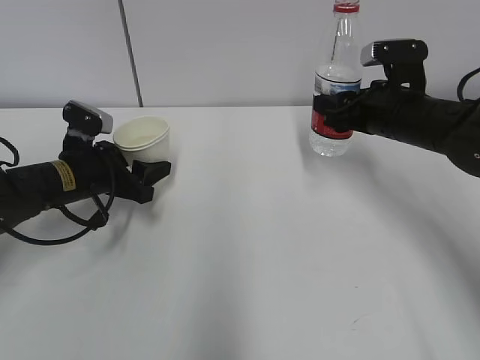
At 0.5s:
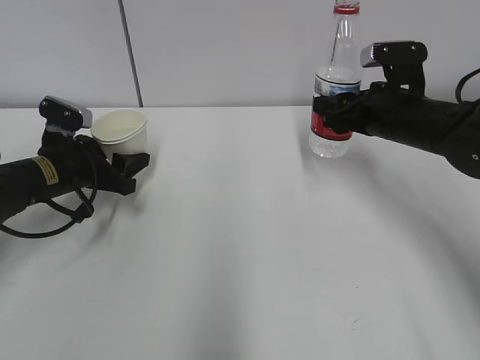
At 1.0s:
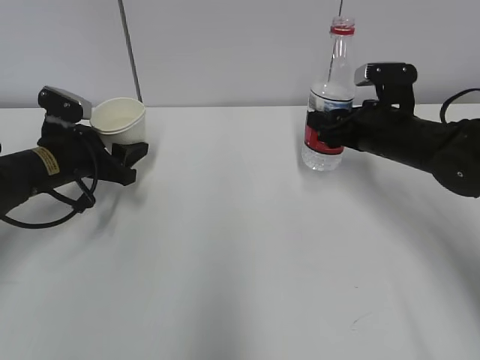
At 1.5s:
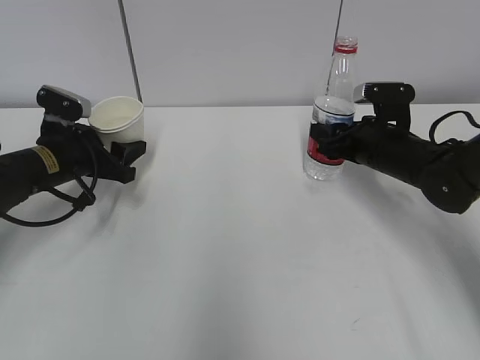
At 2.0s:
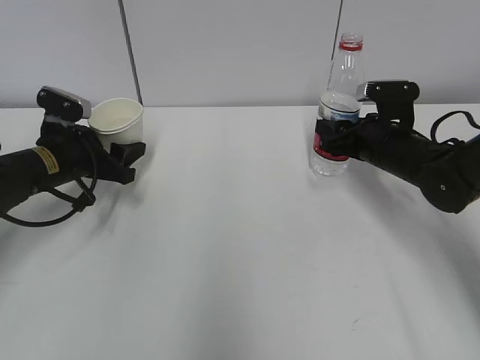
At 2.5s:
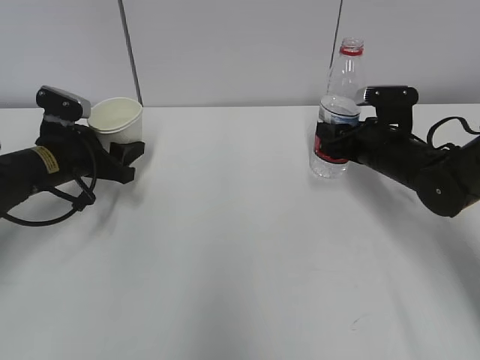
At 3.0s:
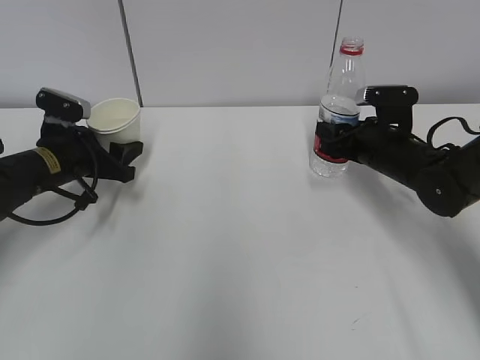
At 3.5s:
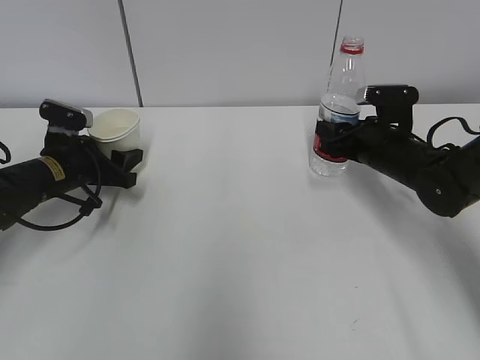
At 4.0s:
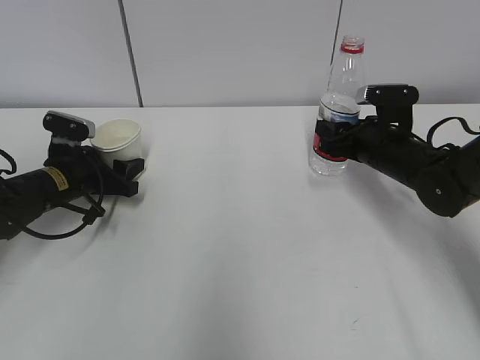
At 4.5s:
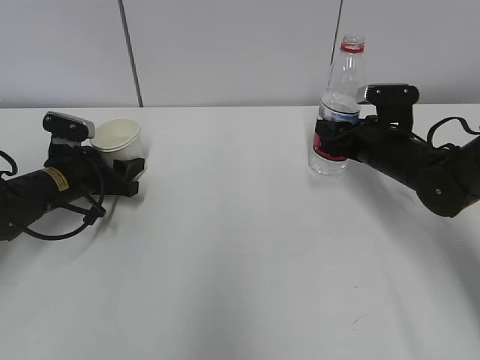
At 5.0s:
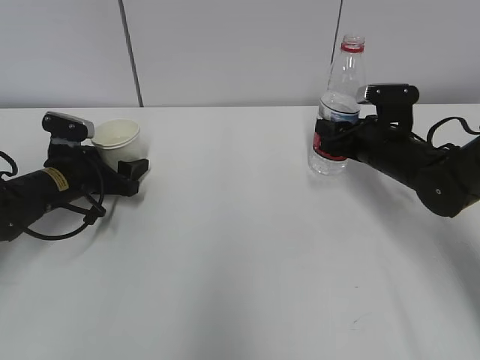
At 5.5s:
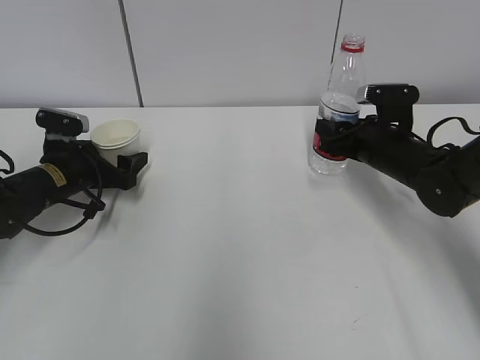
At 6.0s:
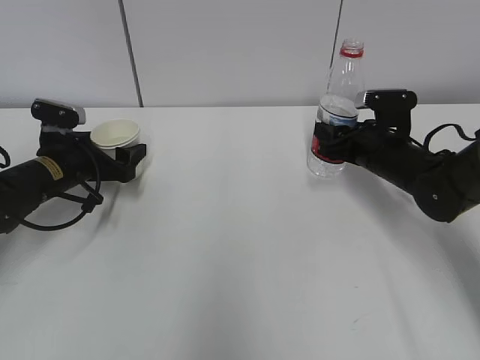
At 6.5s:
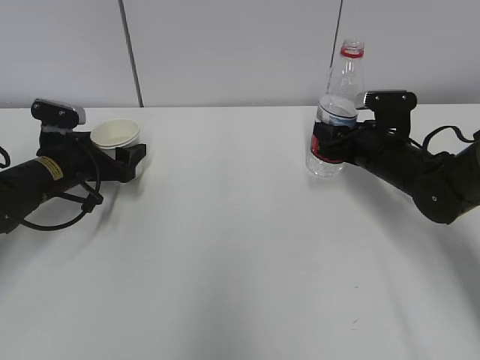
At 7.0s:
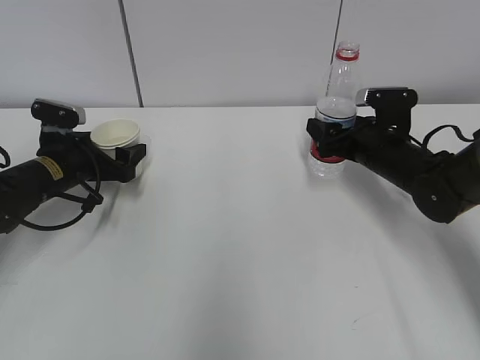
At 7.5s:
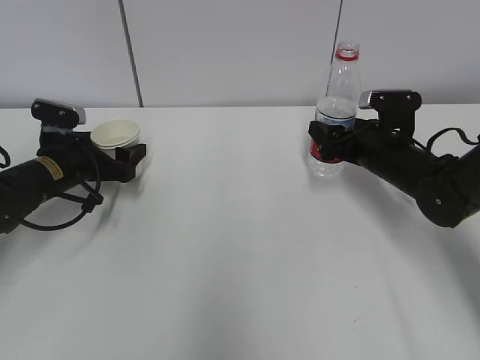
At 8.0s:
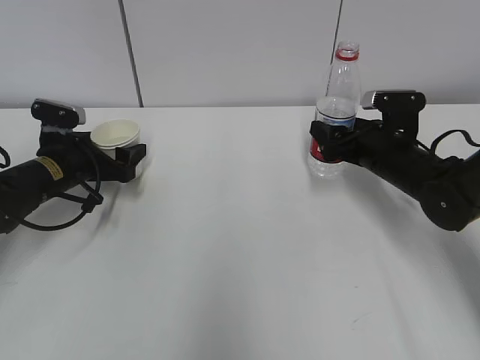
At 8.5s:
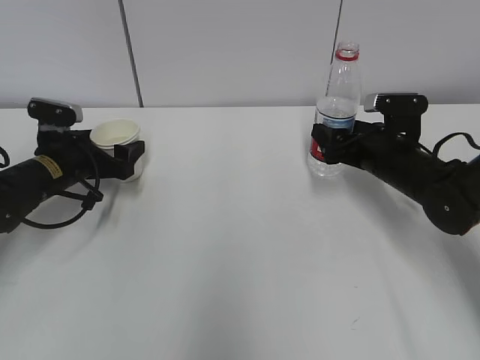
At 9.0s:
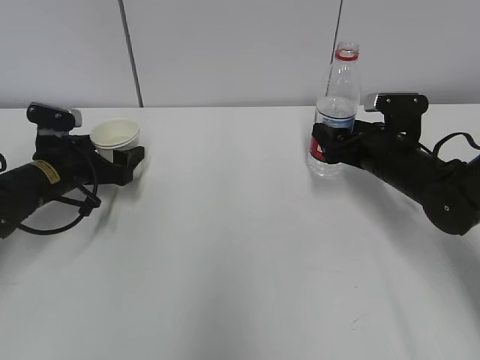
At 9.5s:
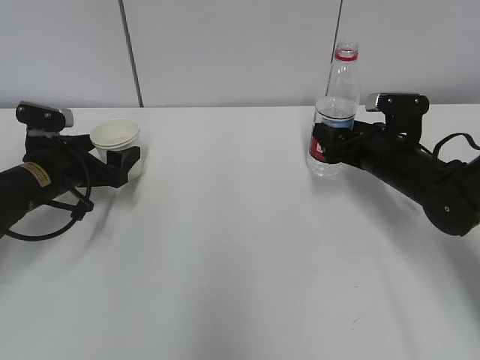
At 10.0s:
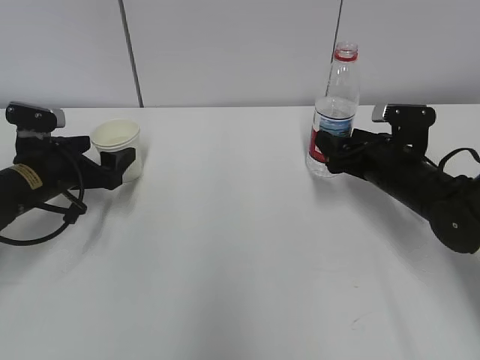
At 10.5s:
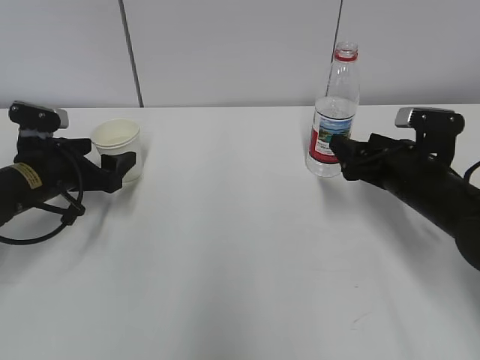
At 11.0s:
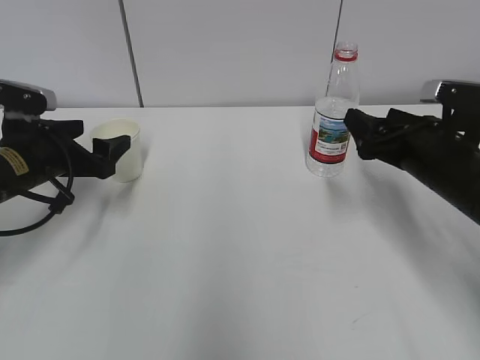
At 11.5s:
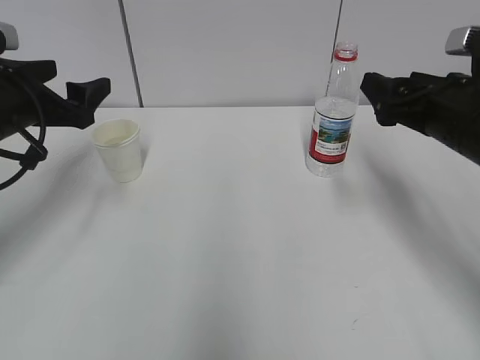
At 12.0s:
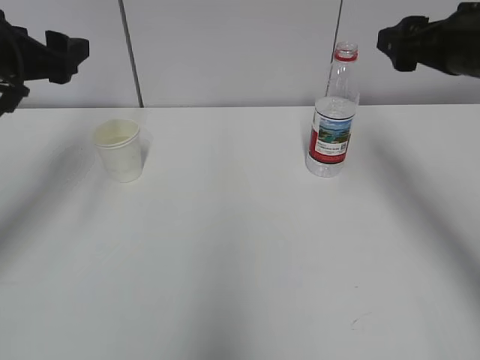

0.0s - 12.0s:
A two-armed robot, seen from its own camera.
0.0s - 2.0s: The right gripper is displaced downward by roughly 5 cm.
2.0s - 4.0s: The grippers stay close to where they were, moving slightly.
4.0s - 6.0s: The left gripper opens its fingers.
6.0s - 8.0s: The right gripper opens up.
8.0s - 10.0s: There are only small adjustments of the grippers.
10.0s - 12.0s: The two grippers go roughly 20 cm upward.

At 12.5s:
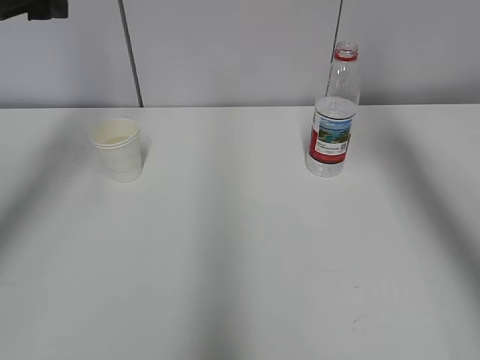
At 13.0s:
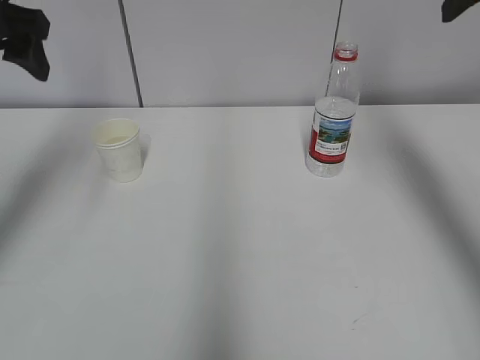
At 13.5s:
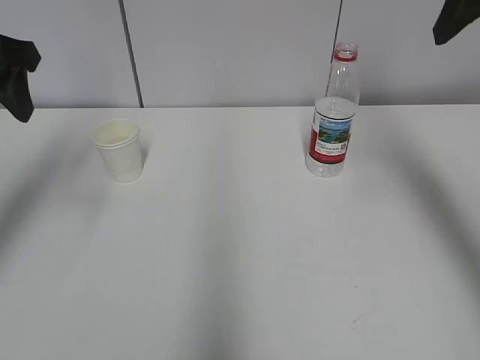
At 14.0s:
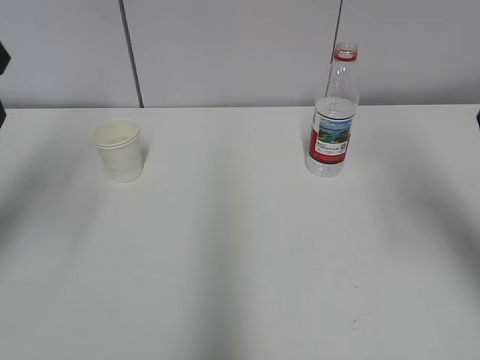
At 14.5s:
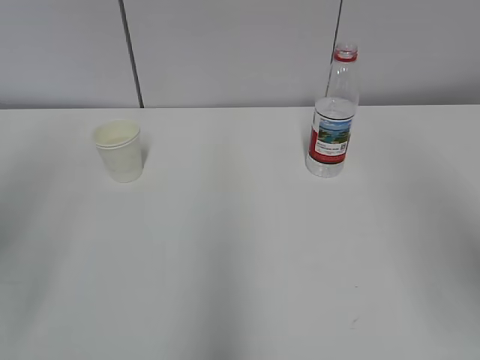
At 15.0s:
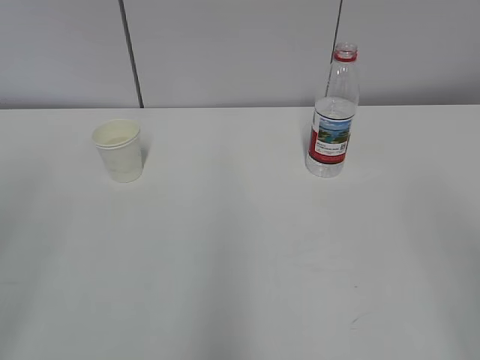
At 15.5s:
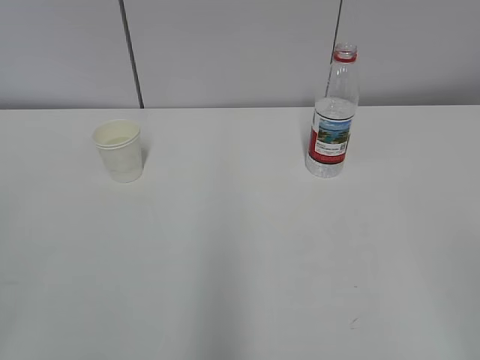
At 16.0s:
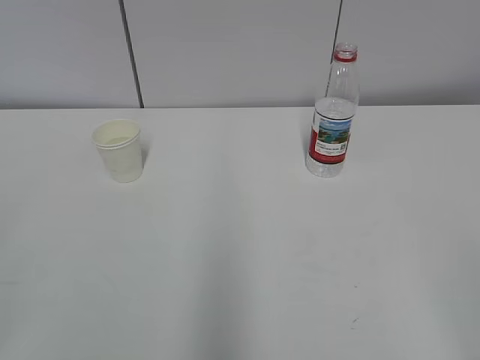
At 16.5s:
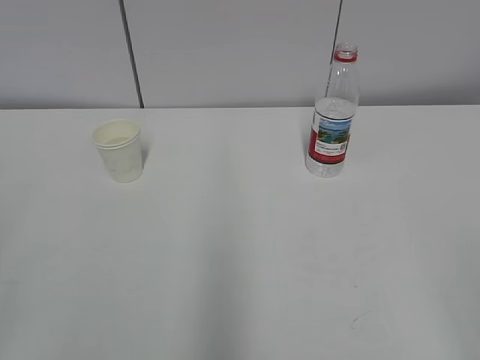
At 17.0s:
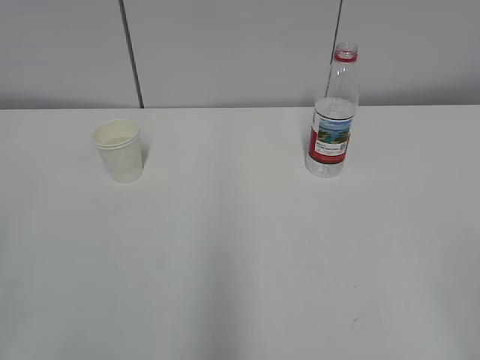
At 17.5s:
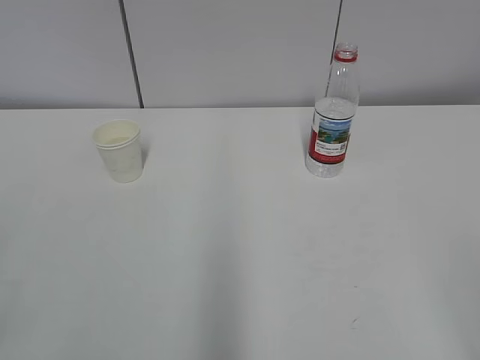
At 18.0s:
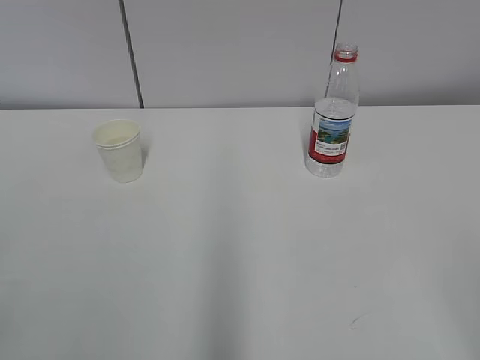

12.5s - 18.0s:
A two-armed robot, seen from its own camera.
12.5s - 14.5s: Both grippers travel together backward, roughly 20 cm. The left gripper closes up.
16.0s - 18.0s: Both grippers stay put.
